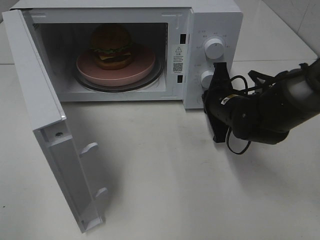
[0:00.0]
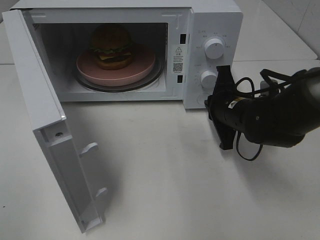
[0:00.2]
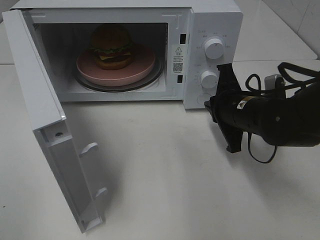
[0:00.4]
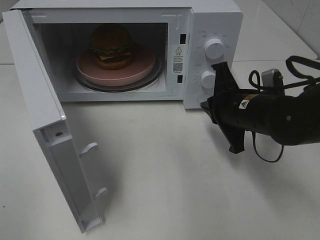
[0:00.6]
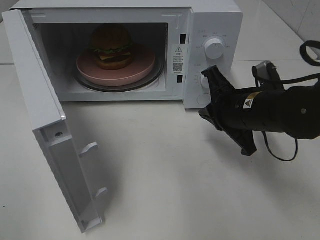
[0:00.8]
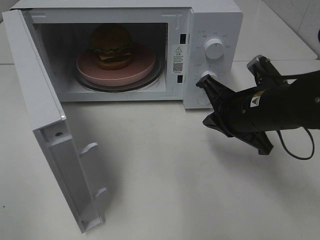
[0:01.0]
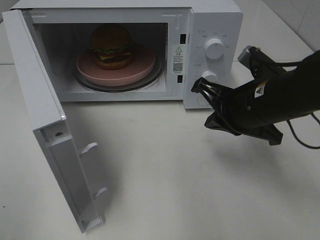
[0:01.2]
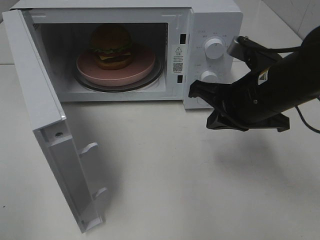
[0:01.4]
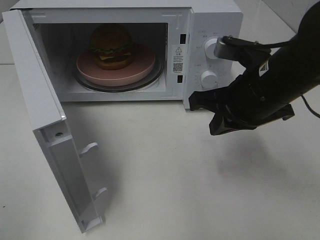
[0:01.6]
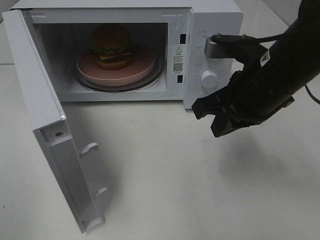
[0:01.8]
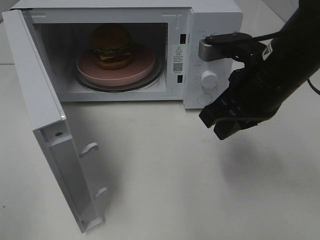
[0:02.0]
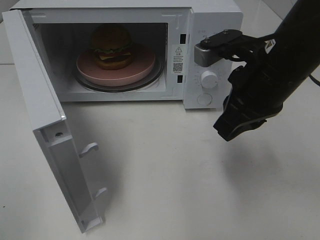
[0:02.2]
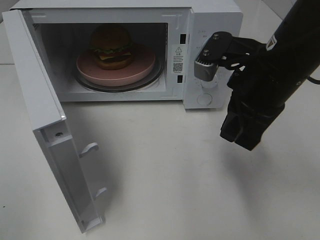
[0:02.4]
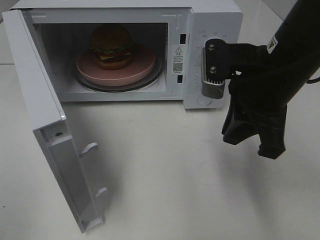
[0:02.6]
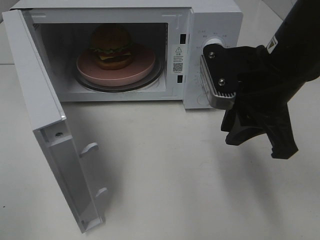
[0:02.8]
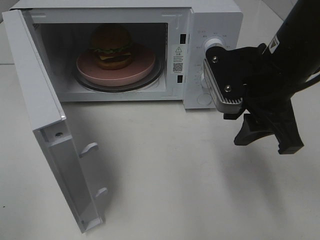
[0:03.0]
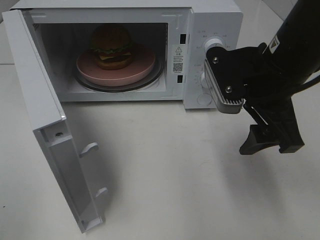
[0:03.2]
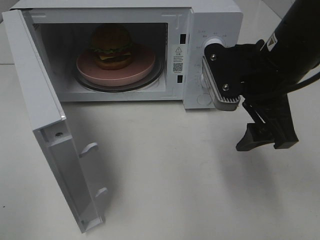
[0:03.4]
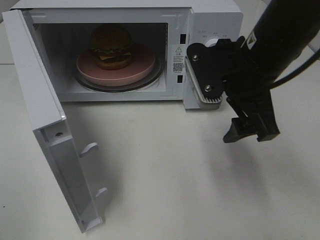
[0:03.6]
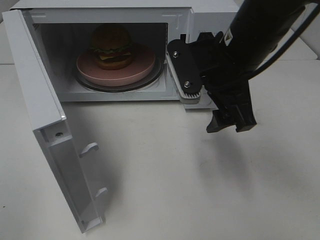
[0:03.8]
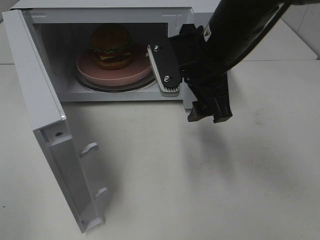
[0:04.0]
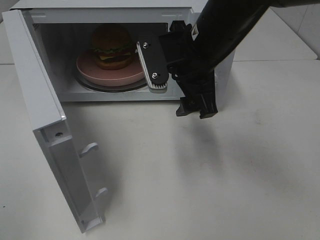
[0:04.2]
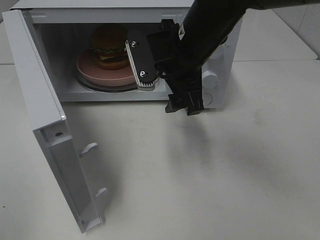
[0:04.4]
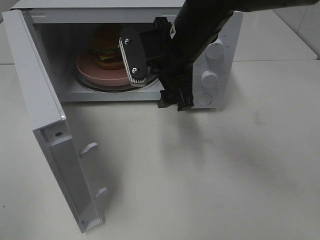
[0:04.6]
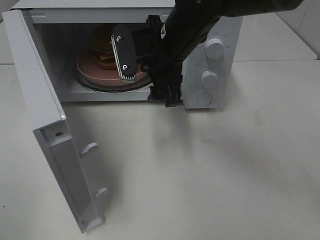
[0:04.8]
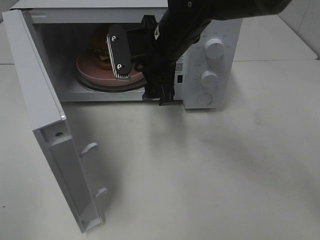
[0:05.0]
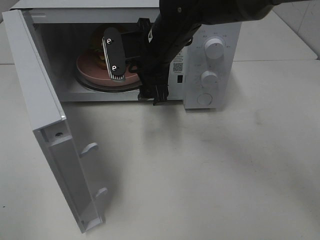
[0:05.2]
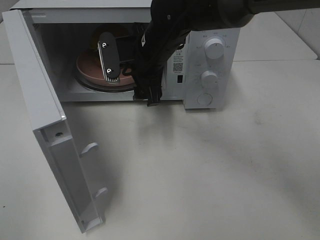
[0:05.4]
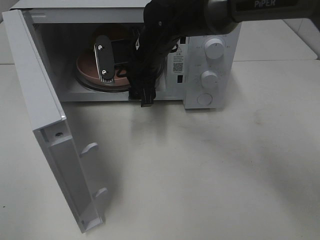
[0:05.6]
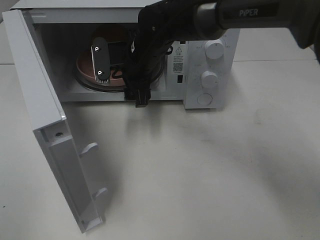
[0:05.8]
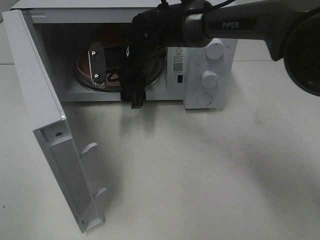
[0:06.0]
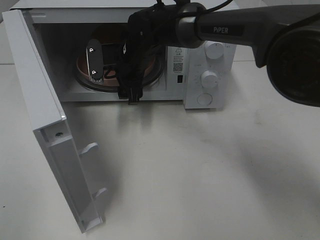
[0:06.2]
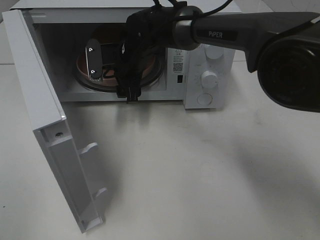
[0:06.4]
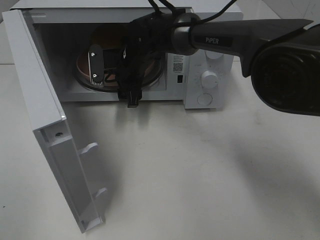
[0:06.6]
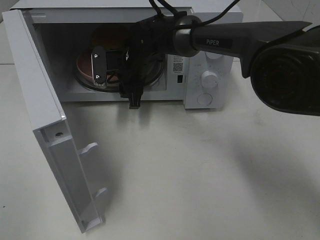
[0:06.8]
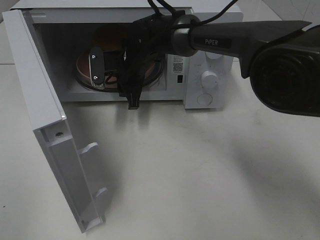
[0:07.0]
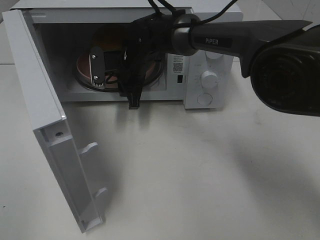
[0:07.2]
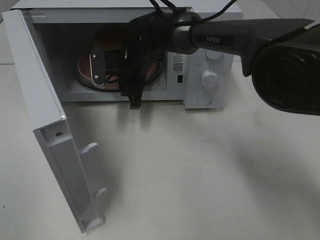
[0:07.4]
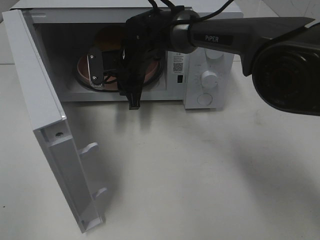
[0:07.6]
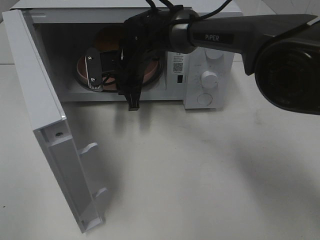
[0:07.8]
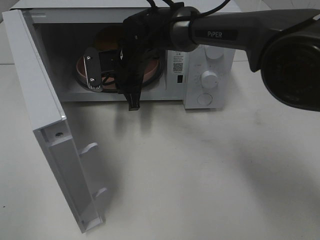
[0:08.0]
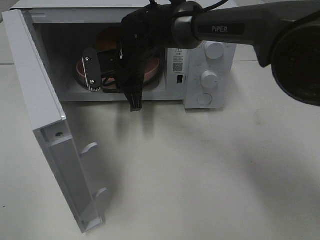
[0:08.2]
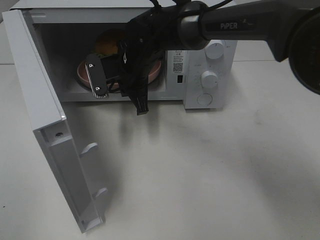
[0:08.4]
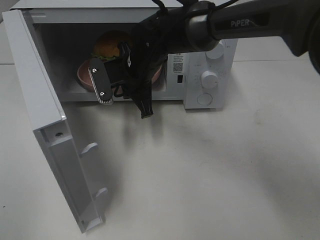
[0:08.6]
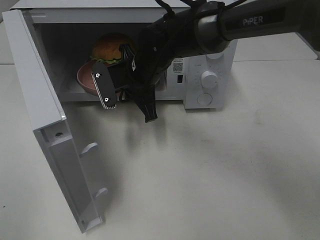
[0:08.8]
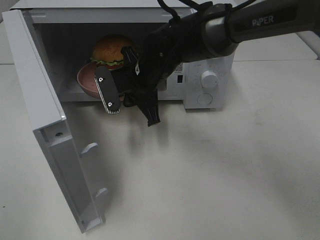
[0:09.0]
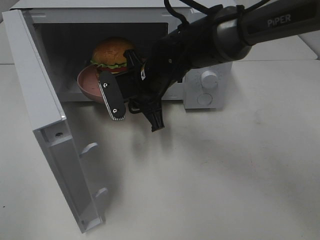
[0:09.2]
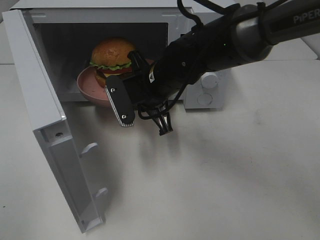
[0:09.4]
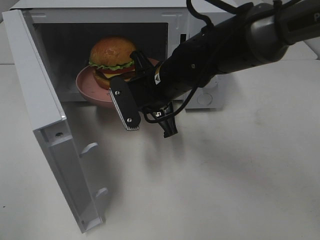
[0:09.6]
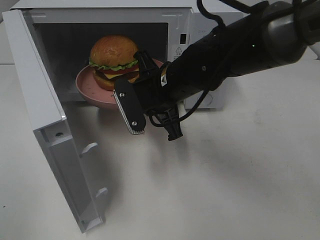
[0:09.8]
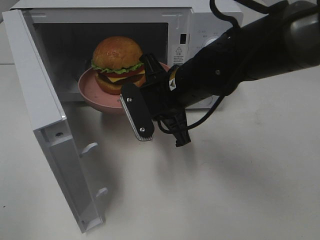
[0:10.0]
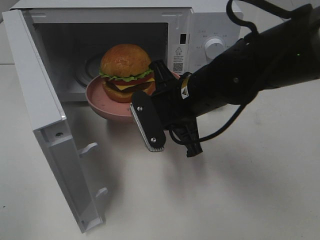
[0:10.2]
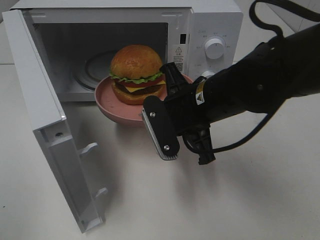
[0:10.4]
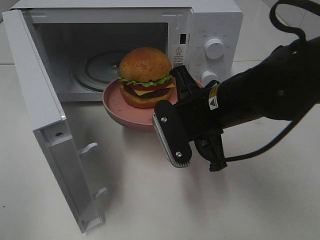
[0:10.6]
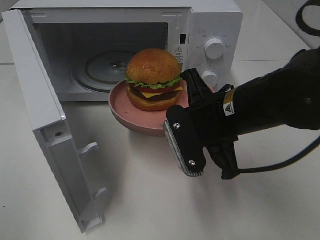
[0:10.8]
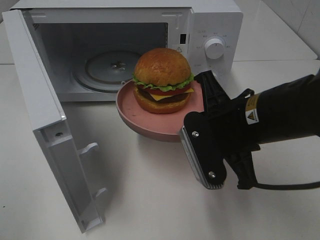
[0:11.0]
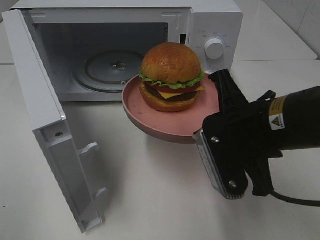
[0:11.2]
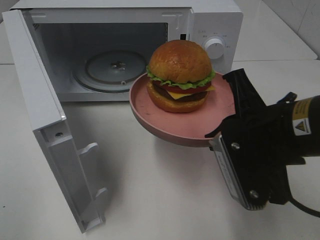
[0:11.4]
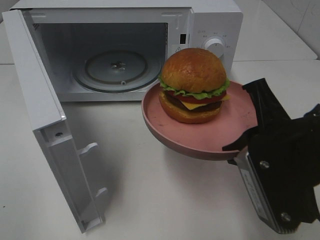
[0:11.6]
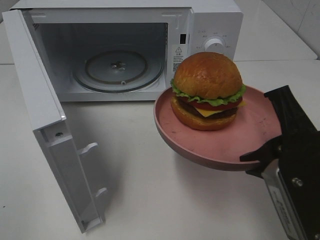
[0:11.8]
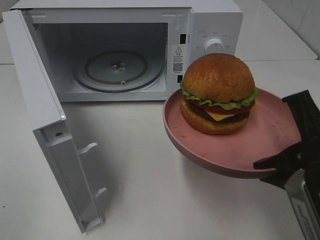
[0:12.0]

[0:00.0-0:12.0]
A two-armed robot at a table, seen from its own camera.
Task of the whole recording: Heat the burger.
Step, 0:00.4 to 0:08.0: Right hand: grab the plate with the hamburger.
0:00.0 to 0:01.6: The right gripper heads upward and backward, covering some 15 cm.
0:01.6 to 0:03.0: The right gripper opens.
0:03.0 to 0:04.4: The right gripper moves to the left and forward, roughly 10 cm.
0:04.4 to 0:06.0: The right gripper goes approximately 15 cm forward, to the left and downward.
0:06.0 to 0:07.6: The right gripper closes.
0:07.6 to 0:09.0: The right gripper moves backward, about 5 cm.
0:09.0 to 0:10.4: The right gripper is displaced backward and to the right by some 15 cm.
0:10.4 to 0:12.0: The right gripper shifts about 20 cm backward and to the right.

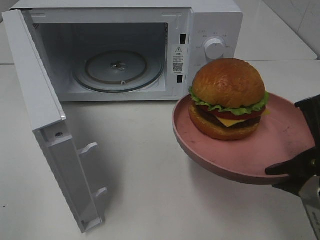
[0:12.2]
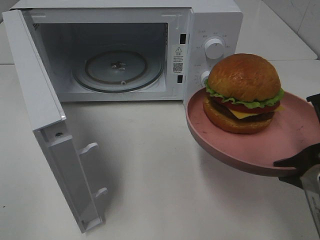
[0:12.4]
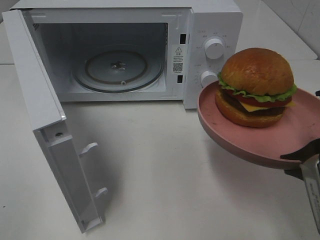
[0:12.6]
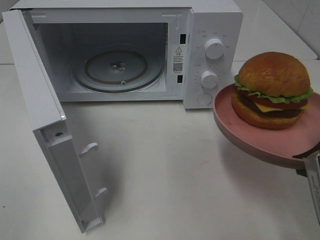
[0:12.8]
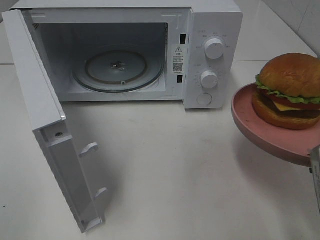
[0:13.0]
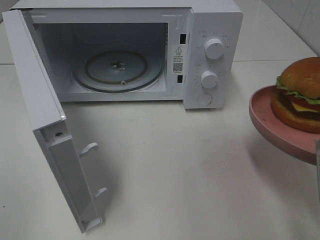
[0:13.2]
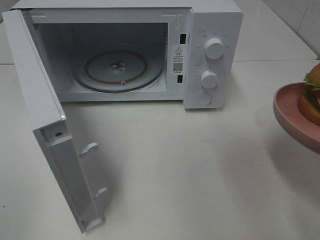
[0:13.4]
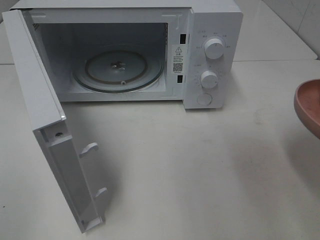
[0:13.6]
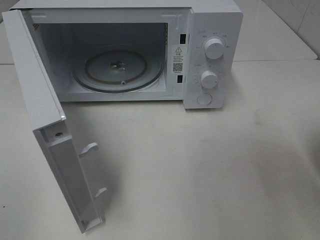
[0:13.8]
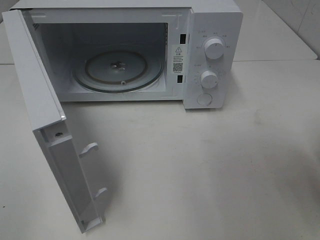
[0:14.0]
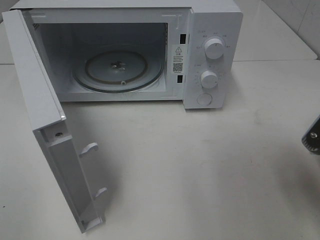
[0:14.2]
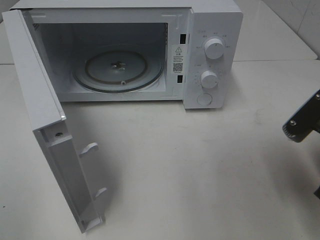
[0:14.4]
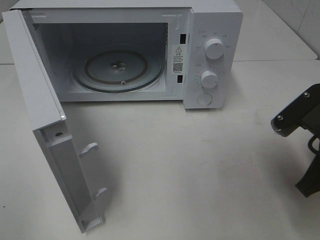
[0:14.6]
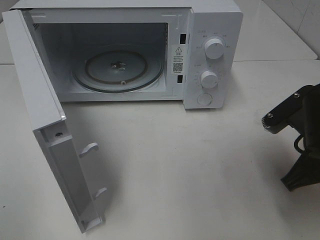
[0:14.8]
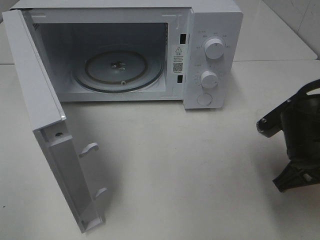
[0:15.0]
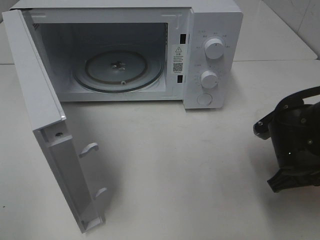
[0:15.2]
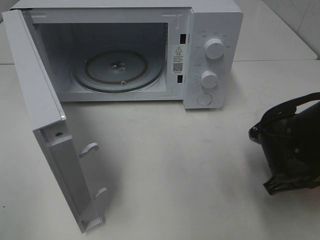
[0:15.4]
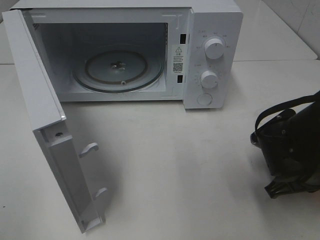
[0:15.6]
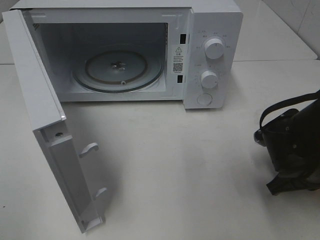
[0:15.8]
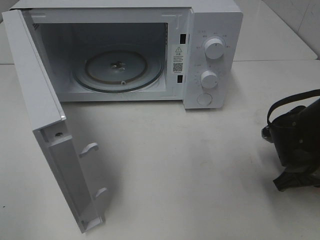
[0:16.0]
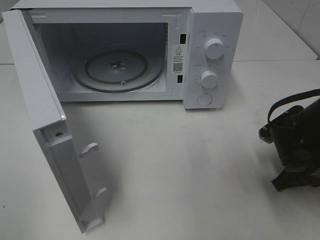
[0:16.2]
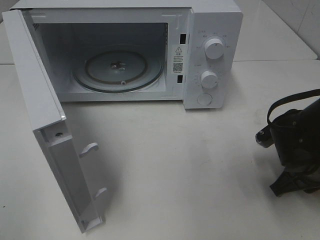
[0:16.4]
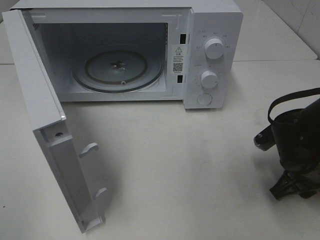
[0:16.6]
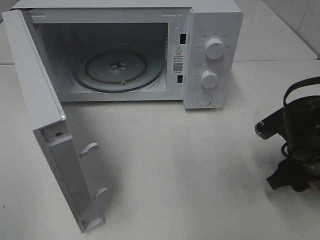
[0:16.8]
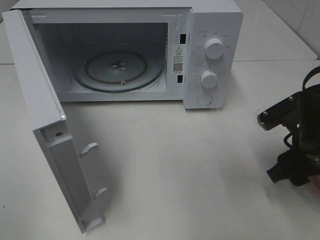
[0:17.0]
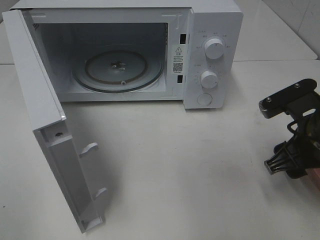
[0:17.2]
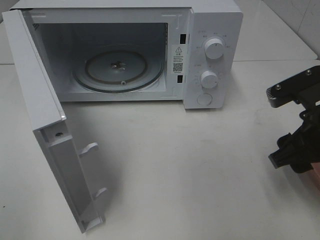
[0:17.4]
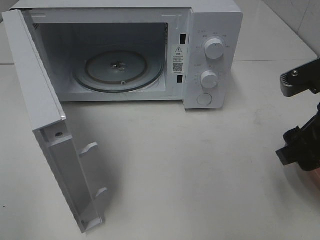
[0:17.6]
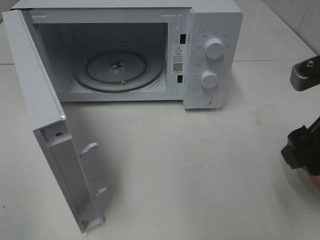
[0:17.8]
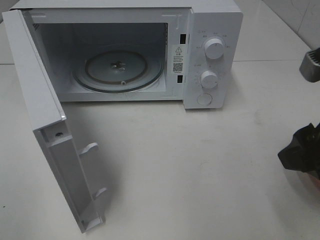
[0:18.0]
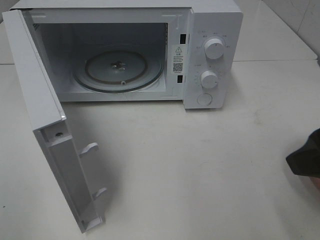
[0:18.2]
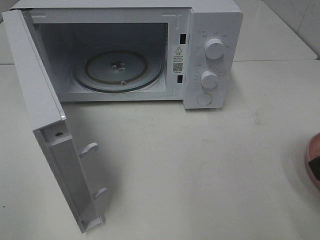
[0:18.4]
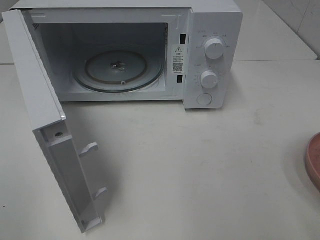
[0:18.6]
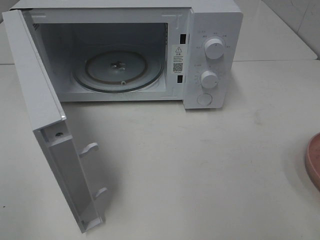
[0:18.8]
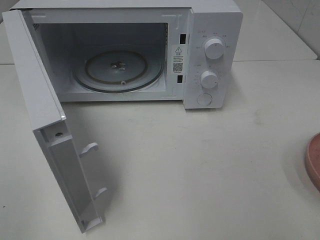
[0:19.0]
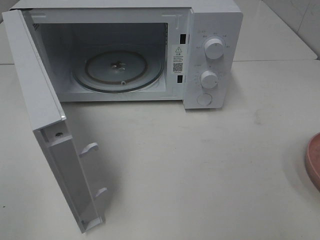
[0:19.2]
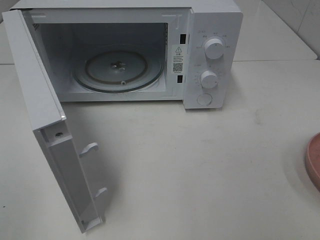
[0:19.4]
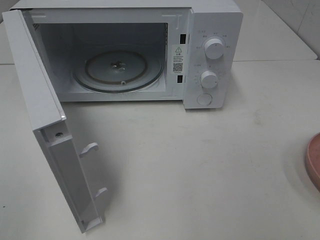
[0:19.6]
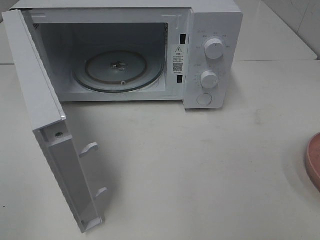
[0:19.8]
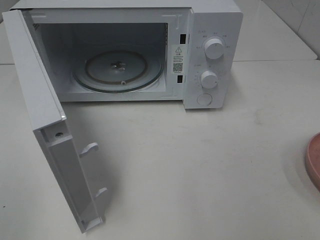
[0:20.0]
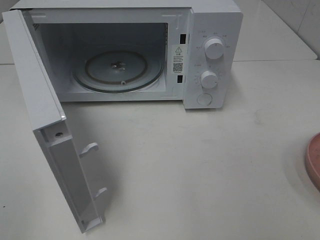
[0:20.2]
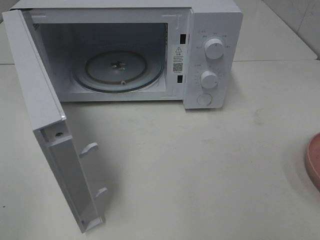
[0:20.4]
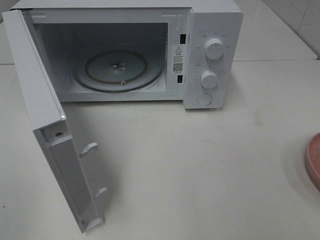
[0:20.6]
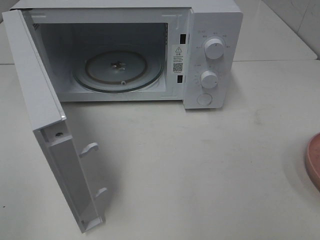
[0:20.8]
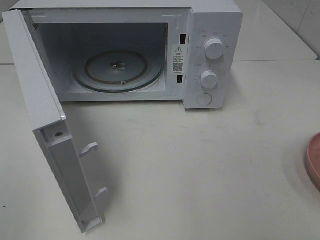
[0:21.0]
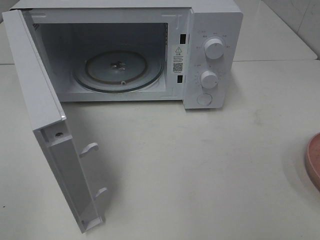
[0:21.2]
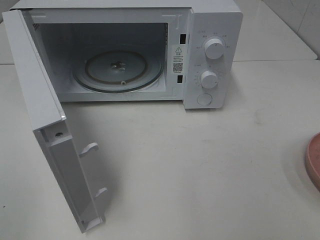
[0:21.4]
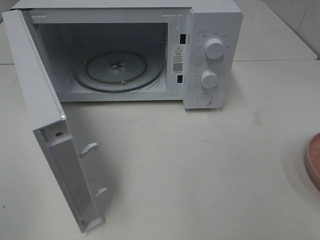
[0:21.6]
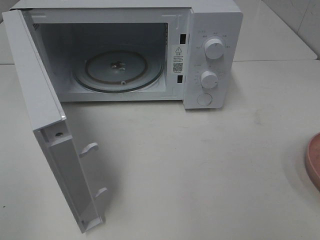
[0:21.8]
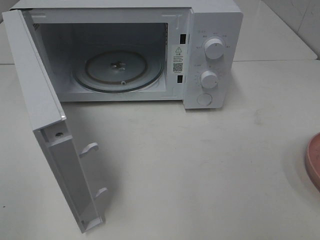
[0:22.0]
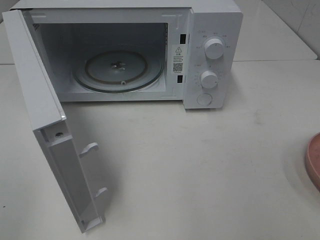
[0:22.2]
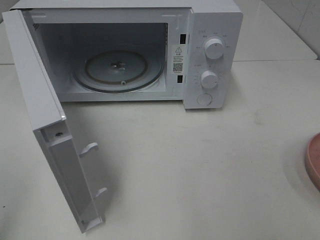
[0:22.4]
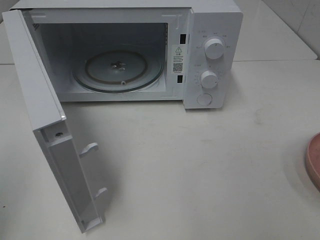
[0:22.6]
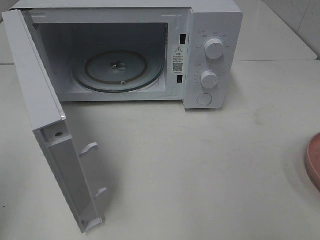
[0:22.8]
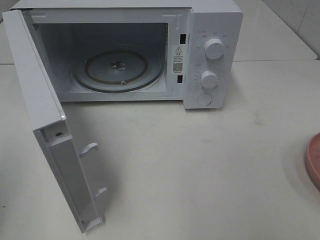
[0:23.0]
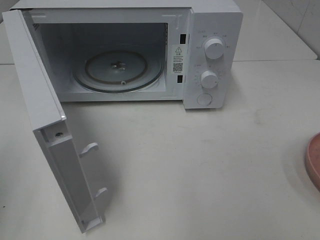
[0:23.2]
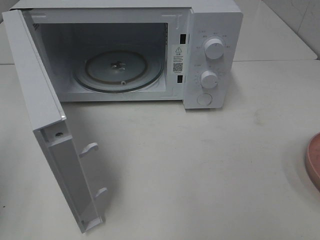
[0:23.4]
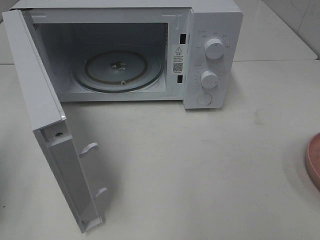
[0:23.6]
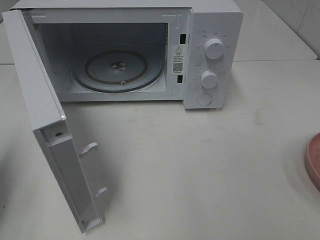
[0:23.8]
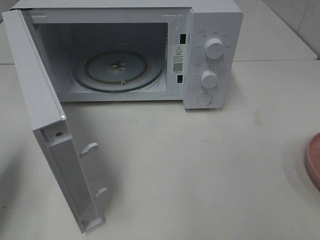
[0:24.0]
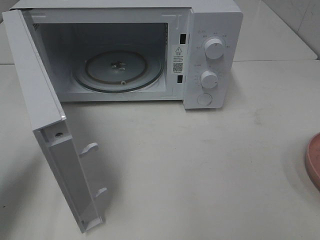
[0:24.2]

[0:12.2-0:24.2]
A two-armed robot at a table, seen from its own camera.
Task of the whole recording: Heat the burger.
Step, 0:12.2 to 0:17.0: Right hand: place the plate on the table.
0:12.2 to 0:13.8: The right gripper goes approximately 5 cm to the right.
0:13.8 to 0:15.2: The right gripper is displaced downward, forward and to the left by roughly 15 cm.
0:15.2 to 0:16.6: The right gripper opens up.
0:16.6 to 0:18.2: The right gripper heads upward and backward, covering approximately 20 cm.
0:18.2 to 0:19.8: The right gripper moves backward and to the right, approximately 15 cm.
0:19.8 to 0:21.2: Neither gripper changes place.
0:22.6 to 0:24.2: The left gripper shifts approximately 15 cm forward and downward.
